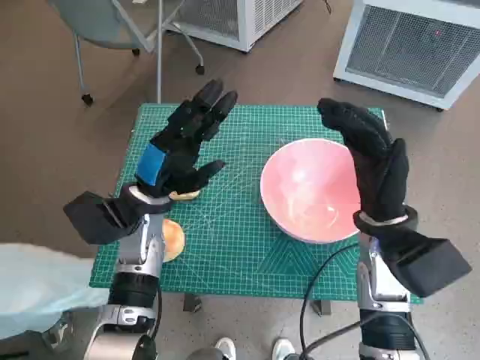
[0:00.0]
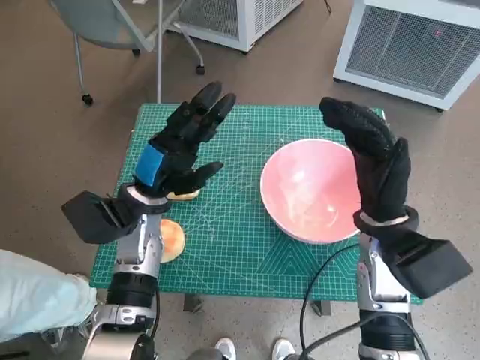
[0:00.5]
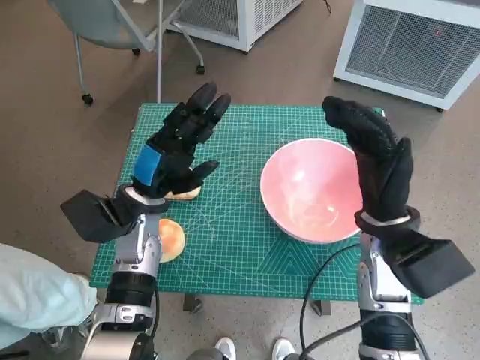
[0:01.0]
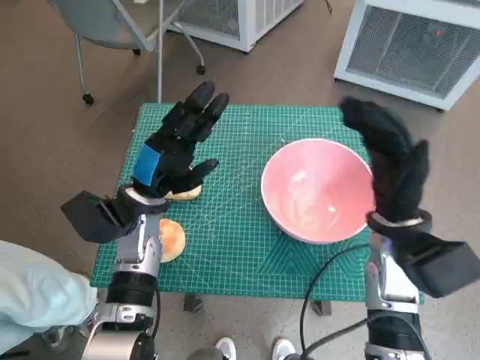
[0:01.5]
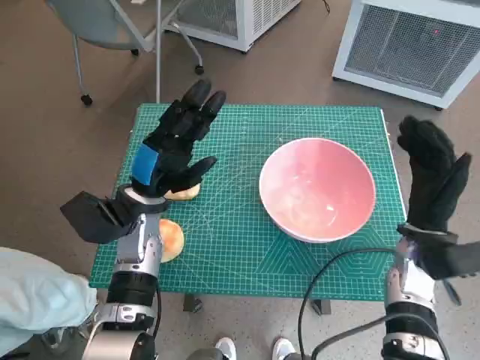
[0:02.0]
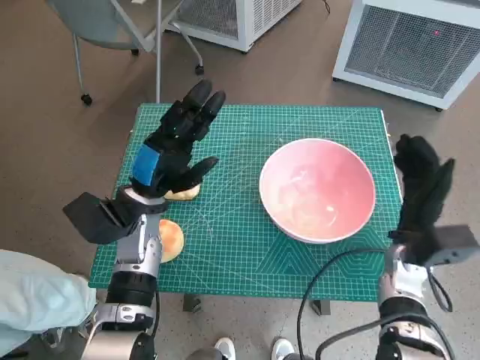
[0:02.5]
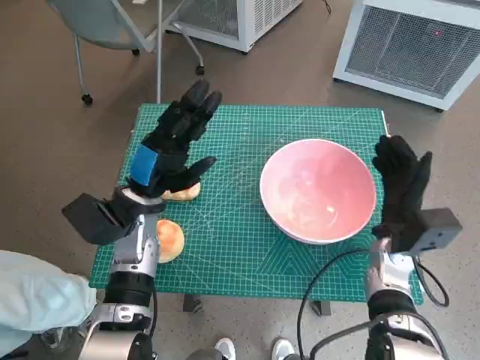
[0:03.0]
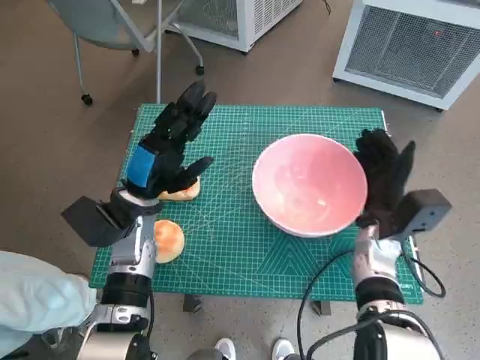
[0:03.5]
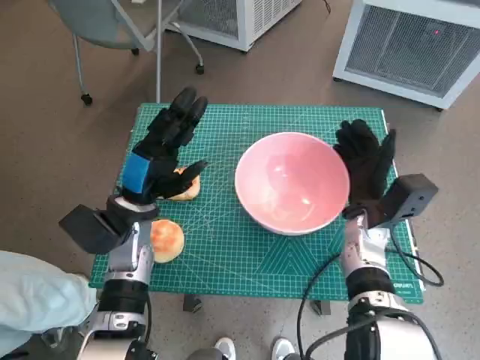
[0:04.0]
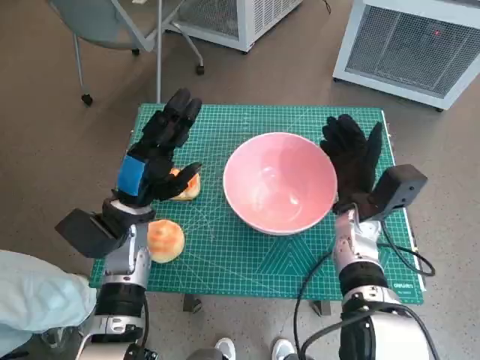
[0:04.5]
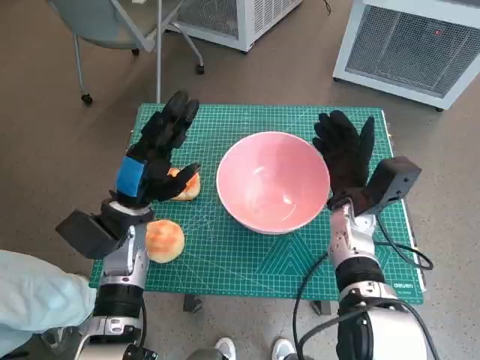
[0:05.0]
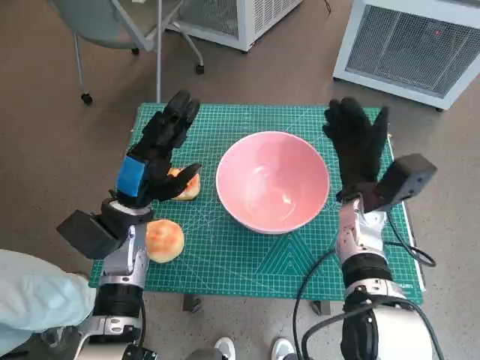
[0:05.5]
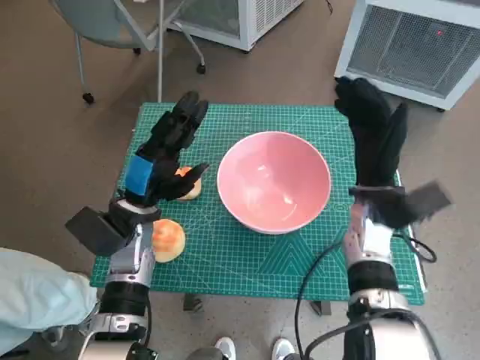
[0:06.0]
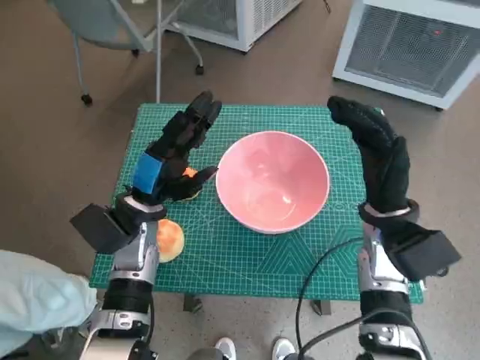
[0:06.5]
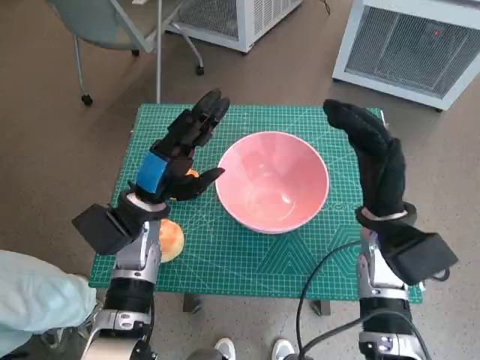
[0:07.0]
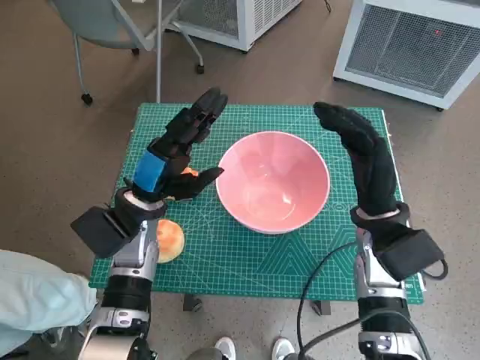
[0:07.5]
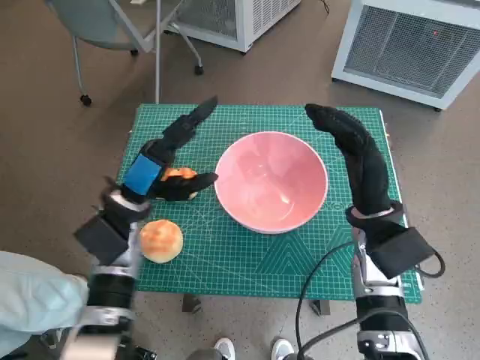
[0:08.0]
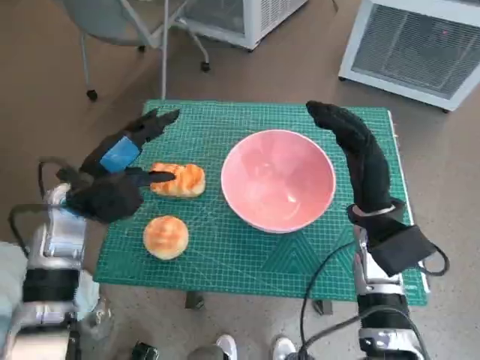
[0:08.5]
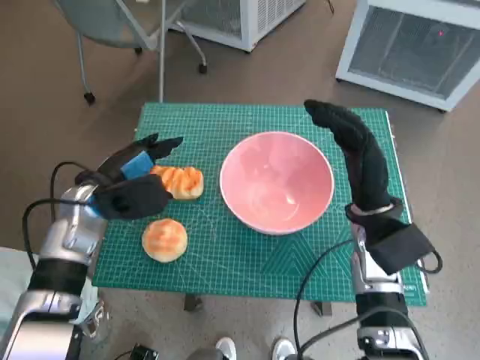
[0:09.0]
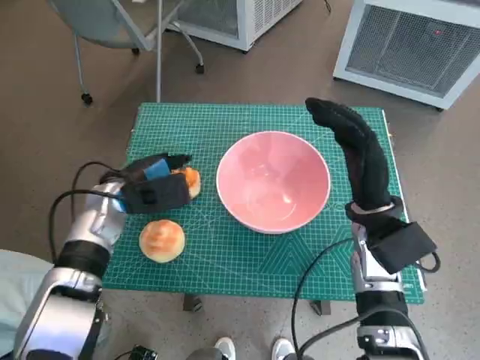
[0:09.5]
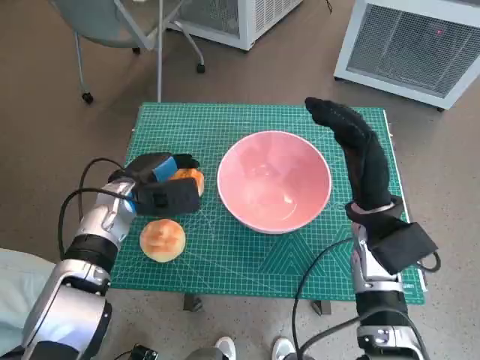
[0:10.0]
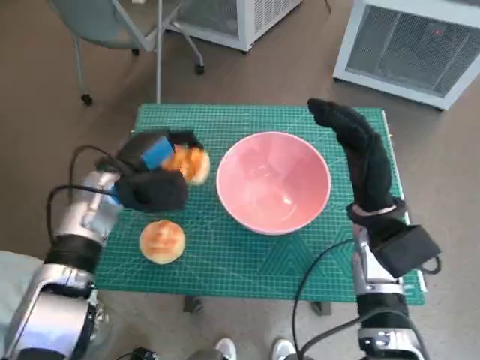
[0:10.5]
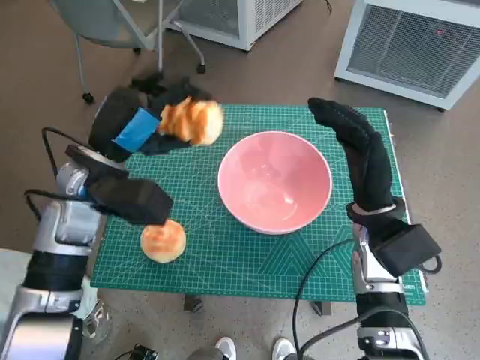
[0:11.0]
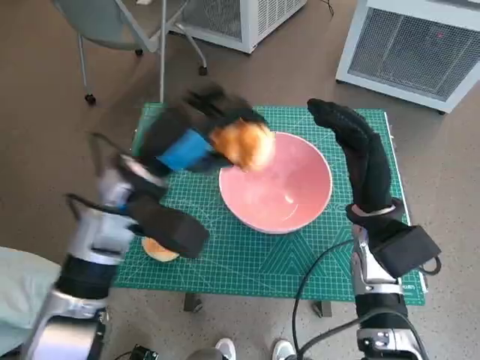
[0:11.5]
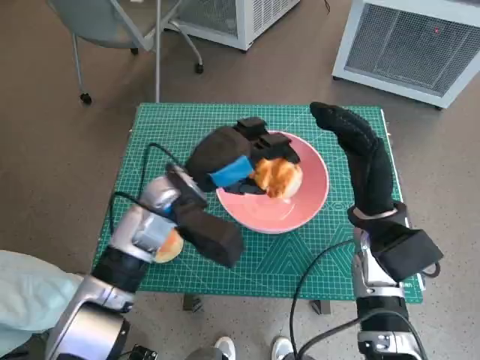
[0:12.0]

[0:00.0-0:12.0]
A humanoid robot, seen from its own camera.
Task of the whole recording: Push the bowl into the center of the table and put the bread into the bowl.
Step, 0:00.0 to 0:05.0: Move the pink bowl to the center of table with right hand.
Step, 0:05.5 to 0:10.0: Grasp the long bread with left hand.
0:02.0 to 0:04.0: The right hand travels to the left by about 5 cm.
0:04.0 to 0:06.0: The right hand goes roughly 5 cm upward.
0:08.0 to 0:10.0: The left hand ends up approximately 5 cm from where it was.
0:10.0 to 0:12.0: The left hand goes approximately 10 cm to the right and upward.

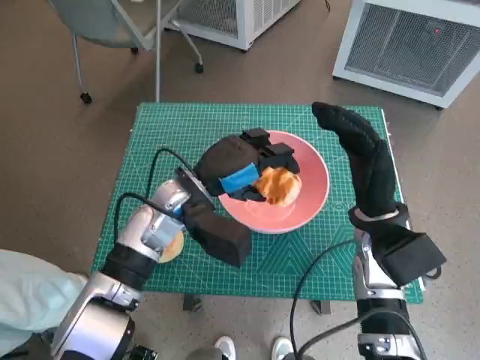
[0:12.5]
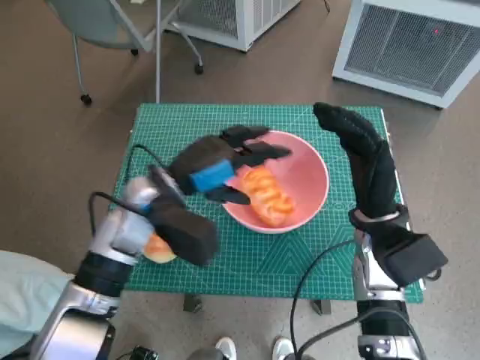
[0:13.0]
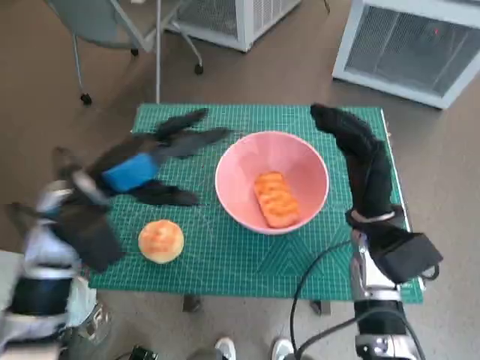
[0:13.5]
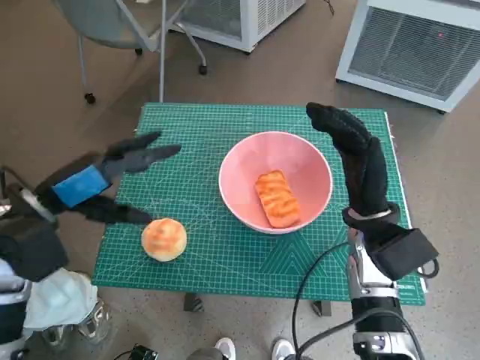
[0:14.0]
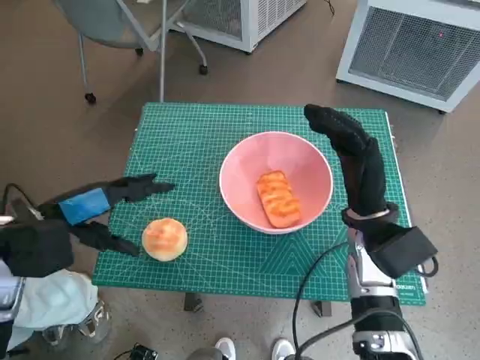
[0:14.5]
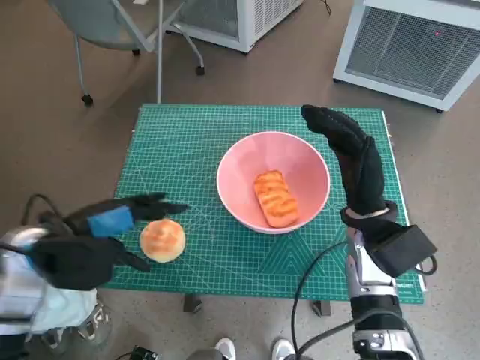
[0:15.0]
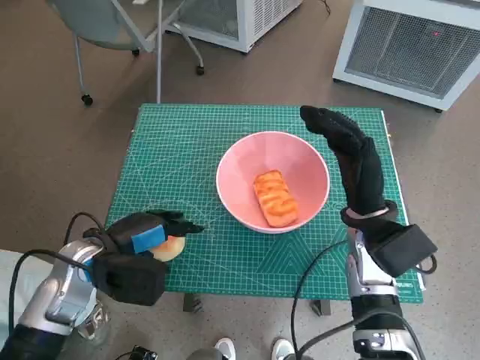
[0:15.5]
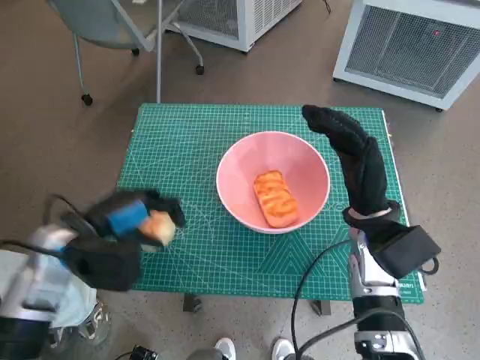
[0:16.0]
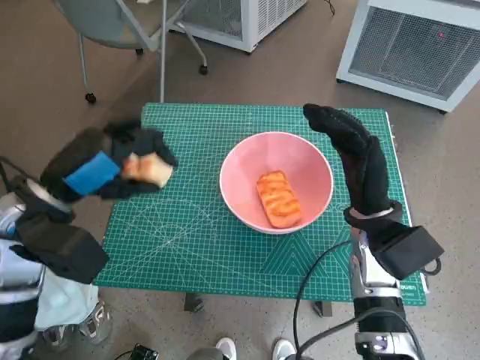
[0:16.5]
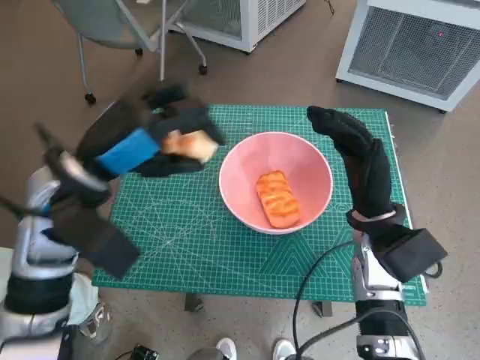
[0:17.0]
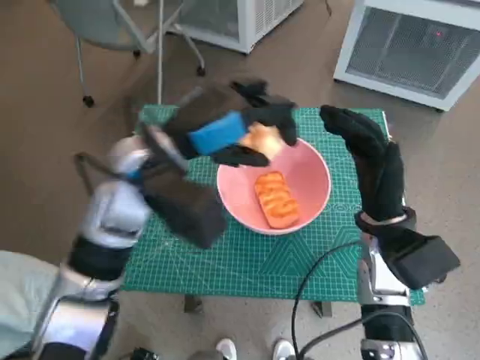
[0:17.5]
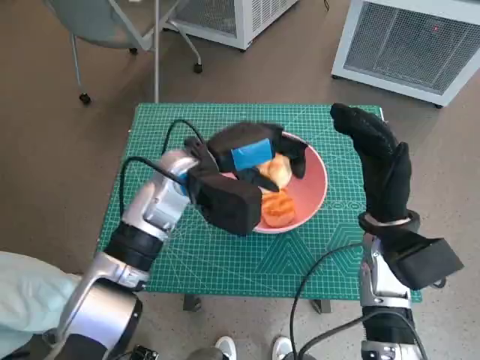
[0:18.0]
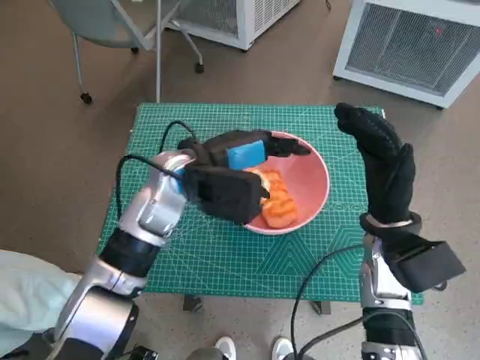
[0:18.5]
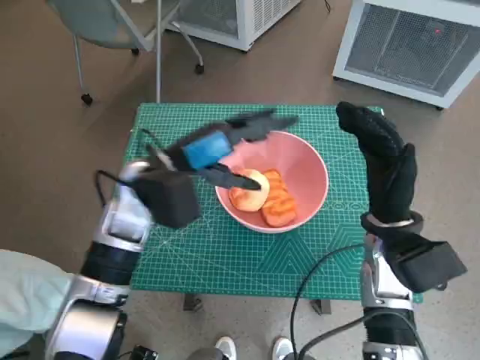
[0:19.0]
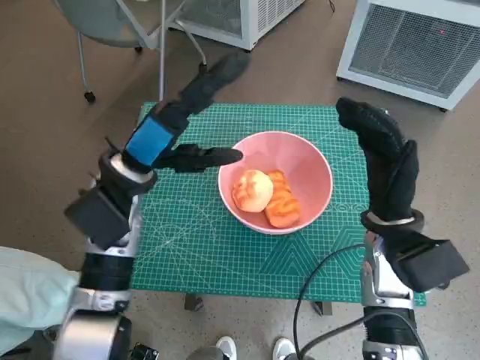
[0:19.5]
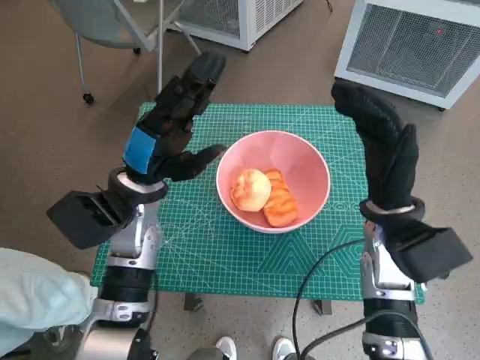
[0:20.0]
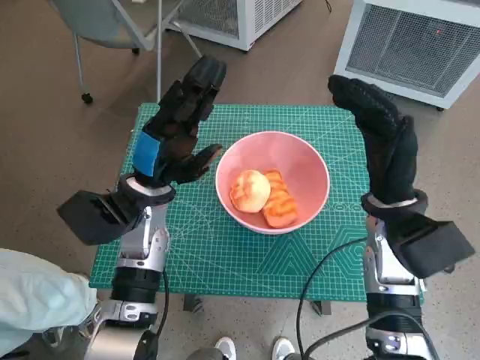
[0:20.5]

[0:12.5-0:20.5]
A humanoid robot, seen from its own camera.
Task of the whole recording: Push the bowl into the center of the table and put the bread into the bowl.
Step, 0:13.0 to 0:15.5: Grasp the round bread with left hand.
Step, 0:16.0 to 0:18.0: Place the round bread in pink bowl with left hand.
0:12.5 to 0:14.5: The left hand is displaced to the left and backward by approximately 20 cm.
0:14.5 to 0:16.5: The left hand goes downward and returns, some 10 cm each way.
0:16.5 to 0:18.5: The left hand moves to the right and forward, about 15 cm.
0:18.5 to 0:20.5: The left hand heads to the left, covering some 5 cm.

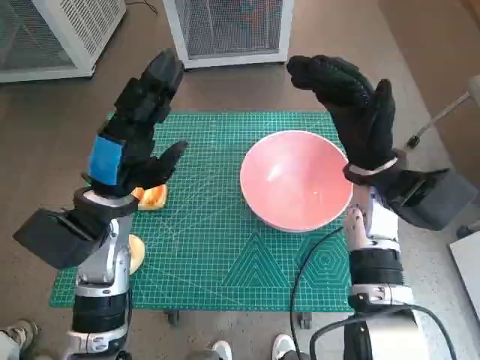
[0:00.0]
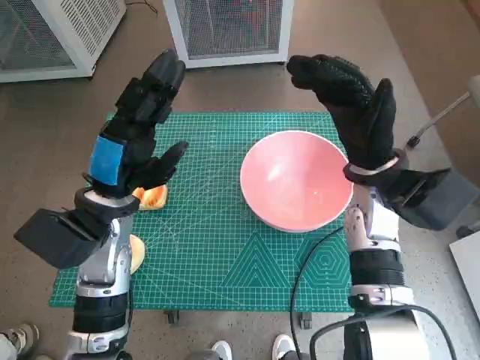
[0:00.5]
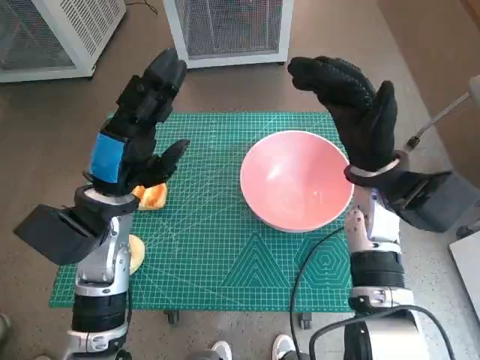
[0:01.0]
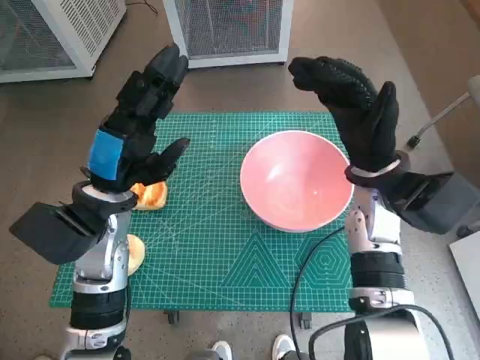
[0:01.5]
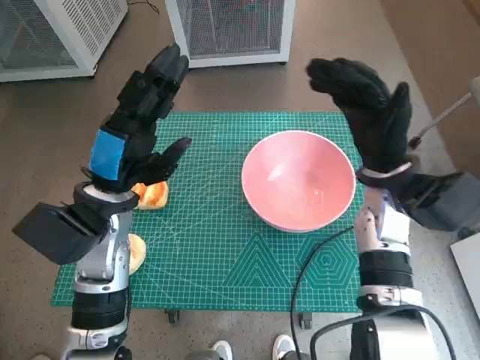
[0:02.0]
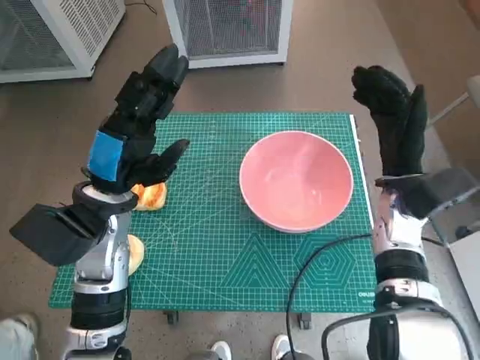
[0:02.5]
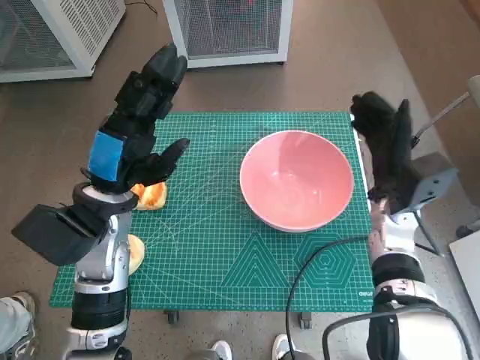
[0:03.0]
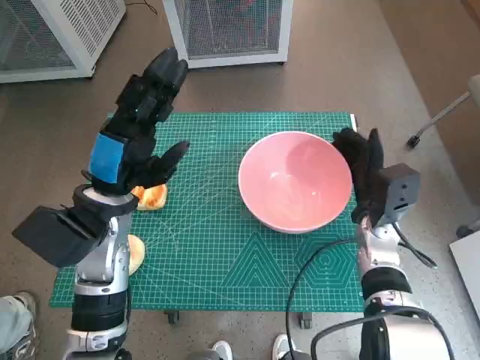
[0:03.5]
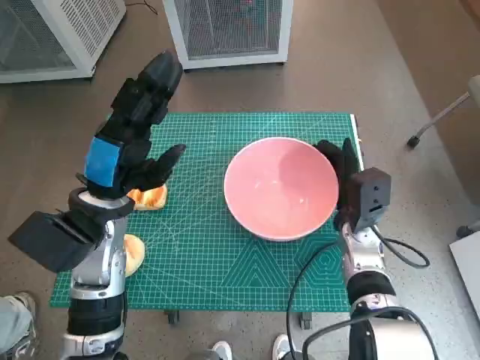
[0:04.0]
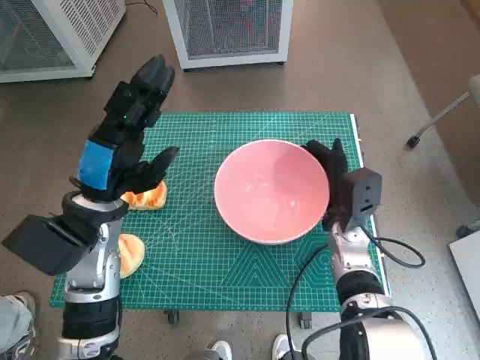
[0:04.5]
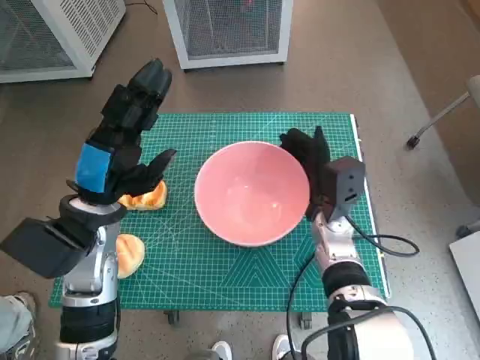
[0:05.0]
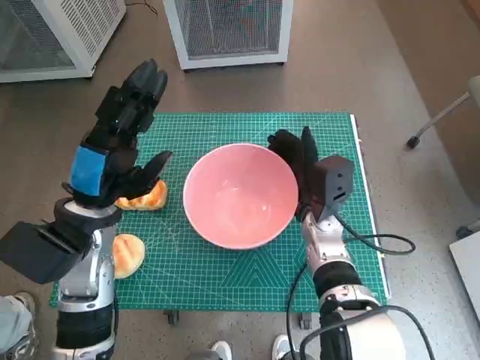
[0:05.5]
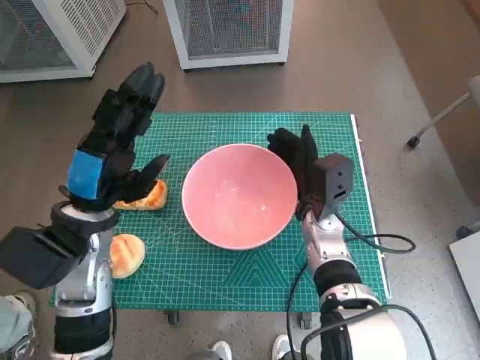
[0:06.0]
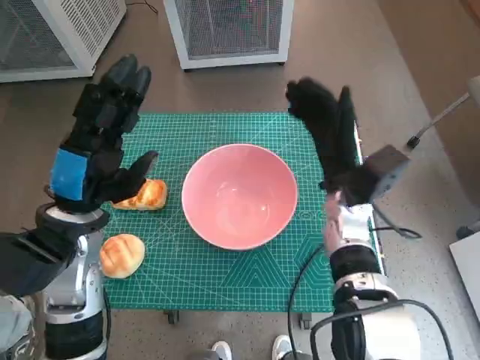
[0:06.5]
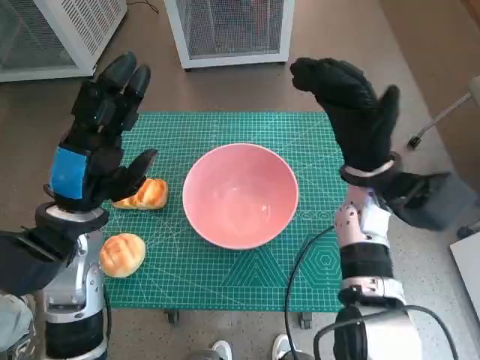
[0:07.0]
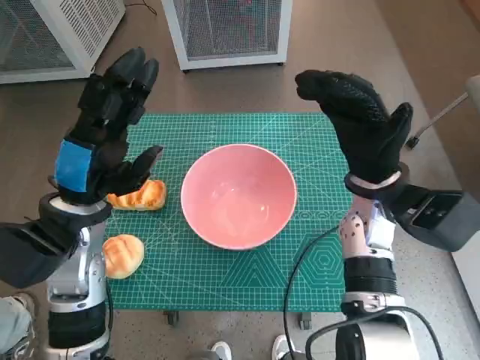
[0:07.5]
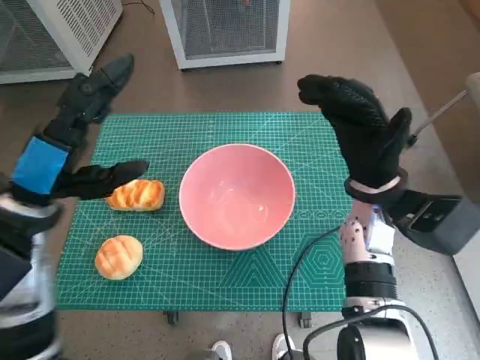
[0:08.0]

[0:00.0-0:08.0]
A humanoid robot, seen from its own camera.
Task of the whole recording: Push the bowl into the center of the table and put the bread into the bowl.
Step, 0:00.0 to 0:06.0: Move the pink bowl to the center of table with right hand.
0:02.0 to 0:04.0: The right hand travels downward by about 10 cm.
0:04.0 to 0:06.0: The right hand shifts roughly 5 cm to the left.
0:06.0 to 0:08.0: The right hand goes about 10 cm upward and to the right.
